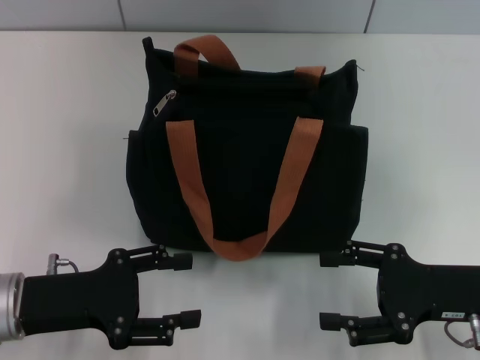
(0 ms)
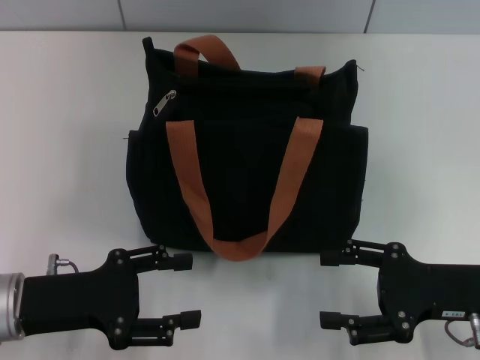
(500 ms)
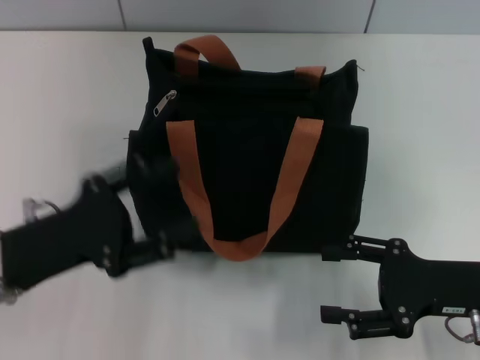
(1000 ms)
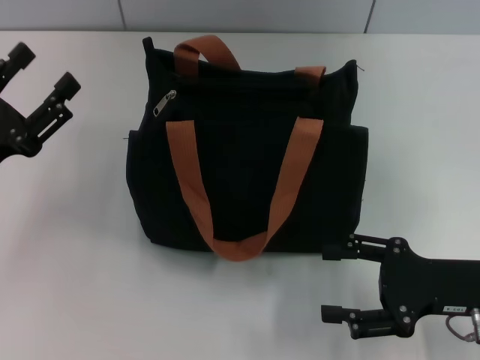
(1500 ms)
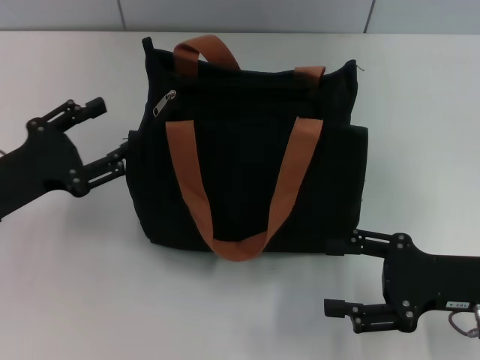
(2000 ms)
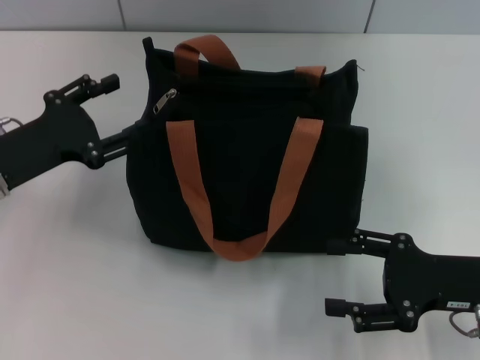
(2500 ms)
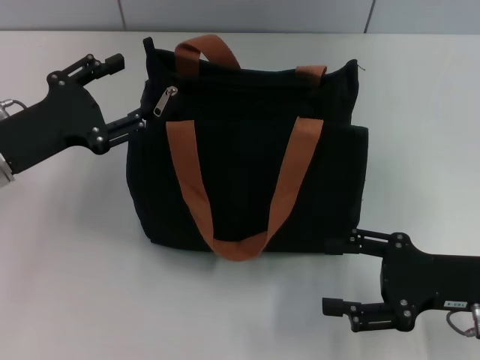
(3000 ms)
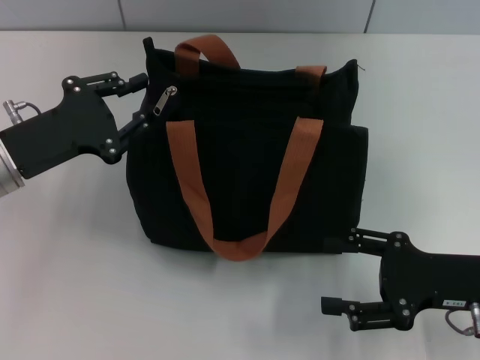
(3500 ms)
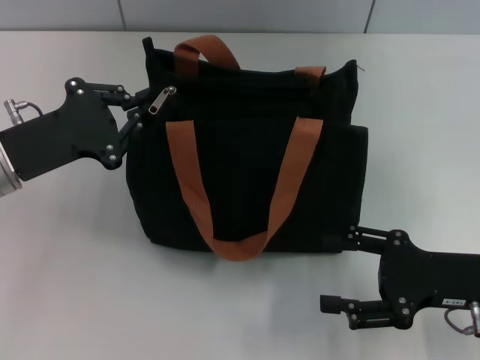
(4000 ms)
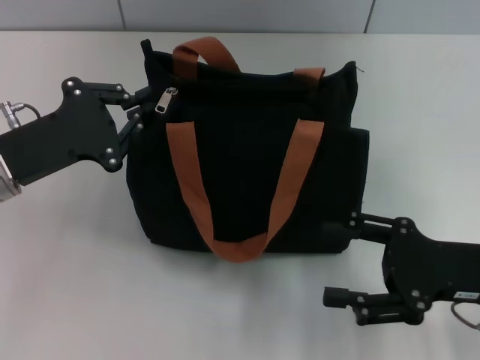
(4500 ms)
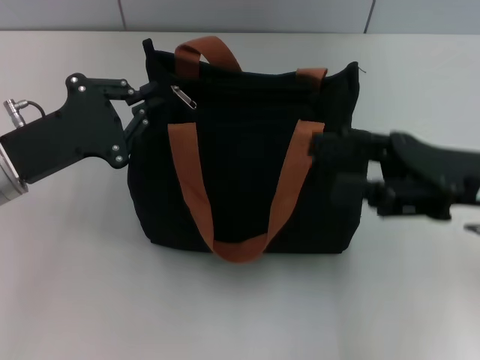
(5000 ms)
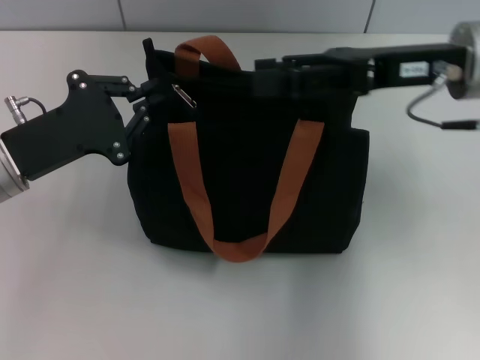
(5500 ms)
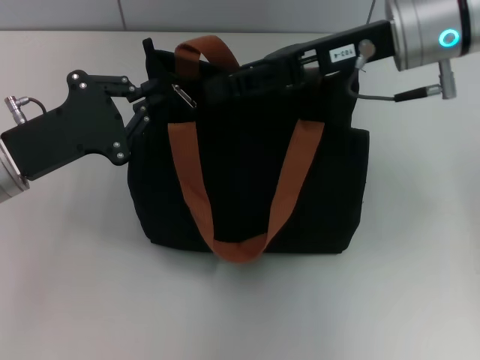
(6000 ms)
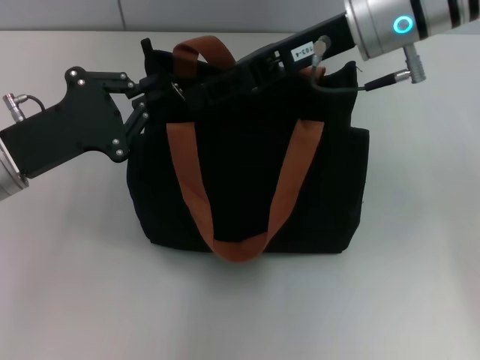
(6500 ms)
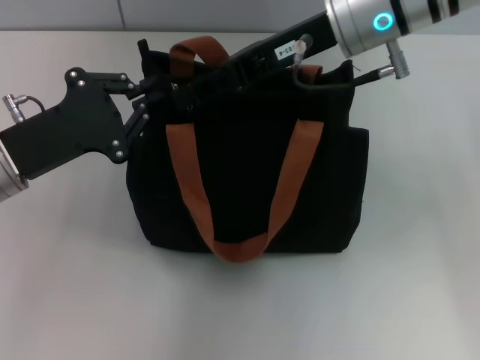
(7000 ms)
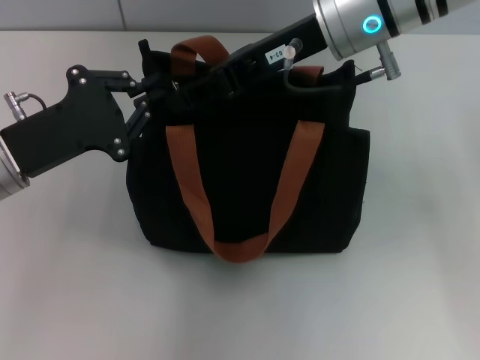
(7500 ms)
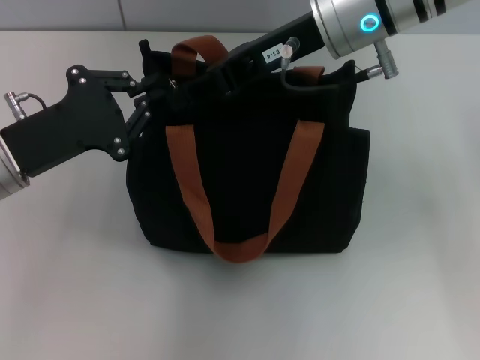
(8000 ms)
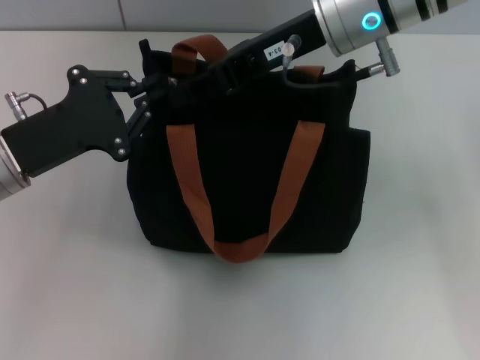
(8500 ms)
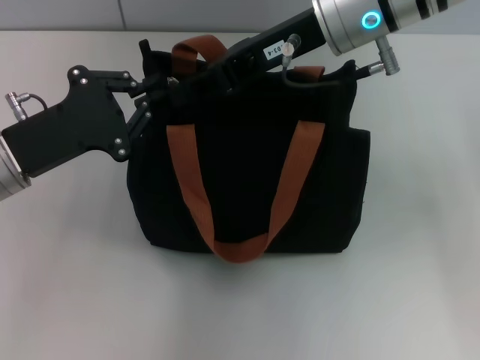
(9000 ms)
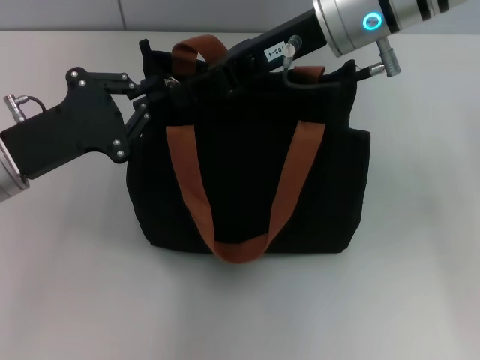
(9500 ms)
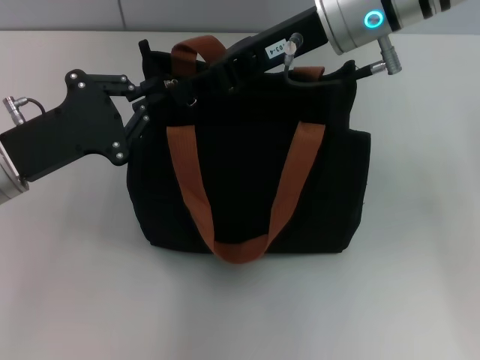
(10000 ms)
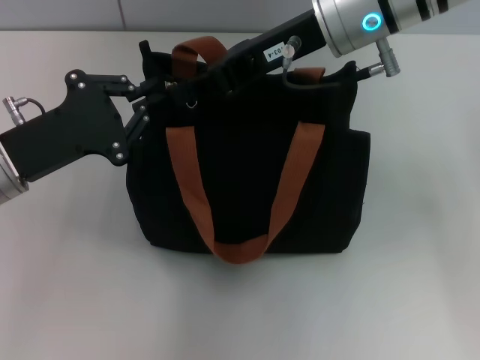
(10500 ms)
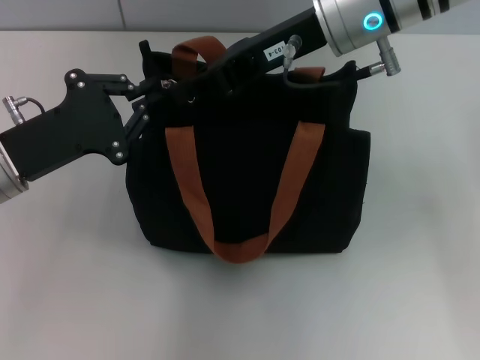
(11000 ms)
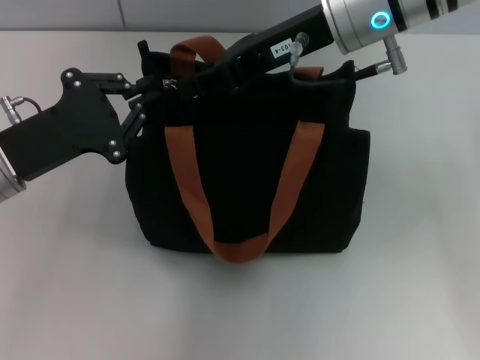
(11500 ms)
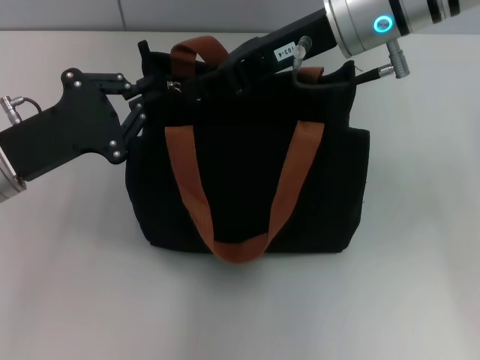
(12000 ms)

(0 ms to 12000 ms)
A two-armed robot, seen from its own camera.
0 ms - 2000 ms: The left gripper changes place by about 5 cm.
2000 ms - 4000 ms: The left gripper moves about 5 cm, and closes.
4000 ms - 6000 ms: The right gripper shifts roughly 25 cm upward, forward and to the left.
6000 ms - 8000 ms: The right gripper travels to the left by about 5 cm, and closes.
8000 ms - 12000 ms: Both grippers stay about where they are.

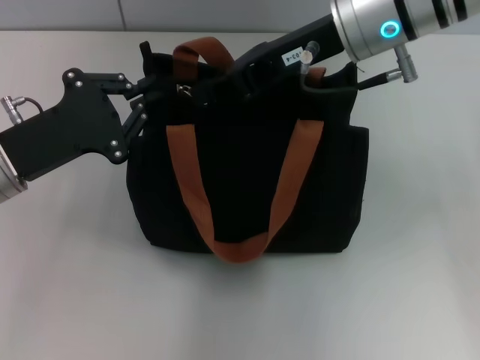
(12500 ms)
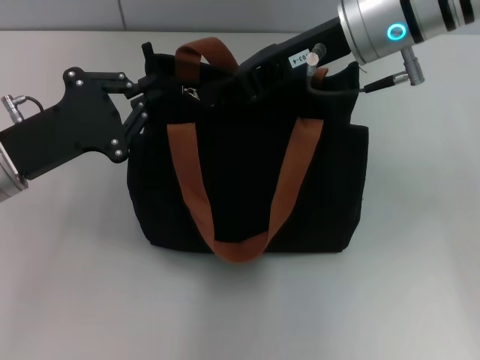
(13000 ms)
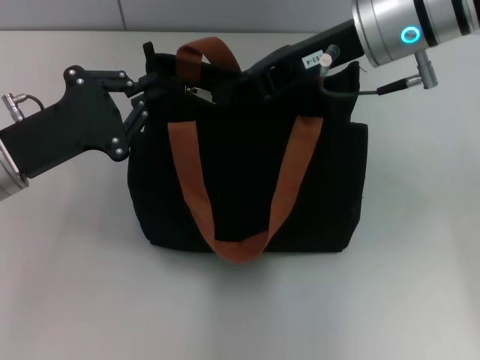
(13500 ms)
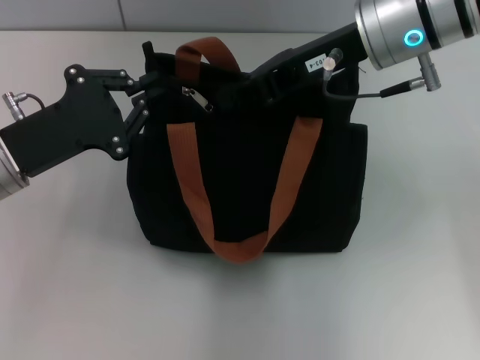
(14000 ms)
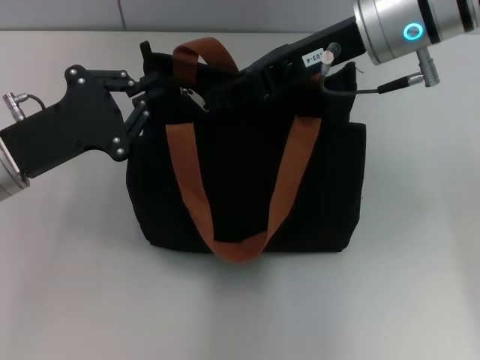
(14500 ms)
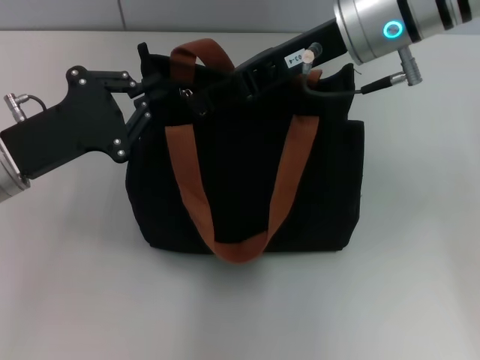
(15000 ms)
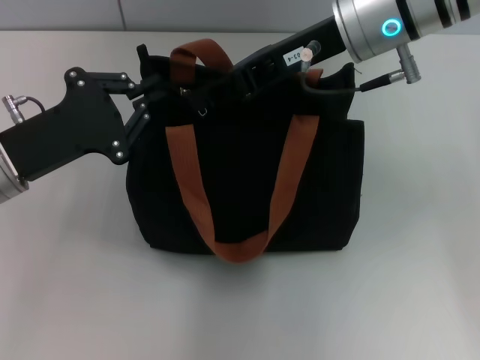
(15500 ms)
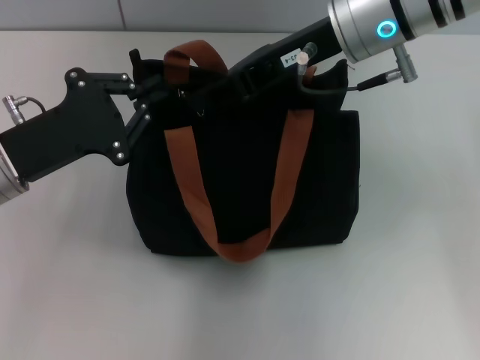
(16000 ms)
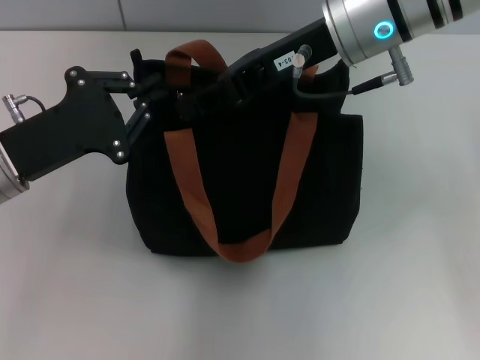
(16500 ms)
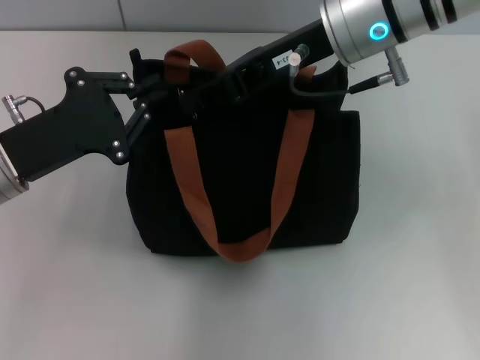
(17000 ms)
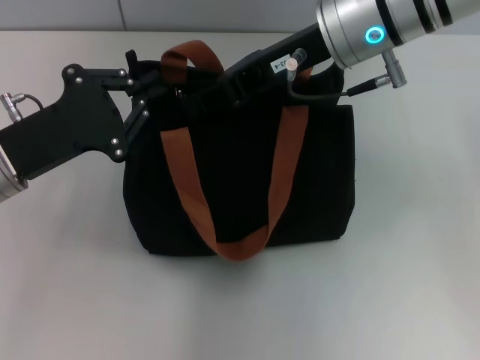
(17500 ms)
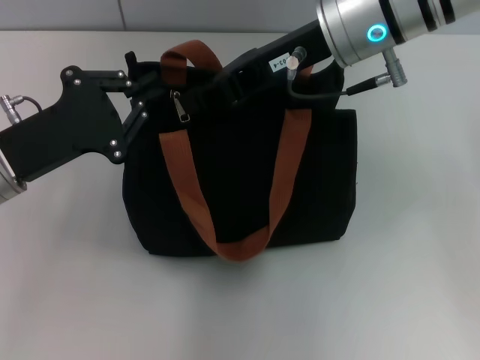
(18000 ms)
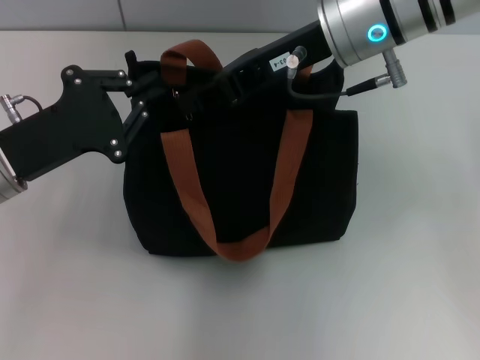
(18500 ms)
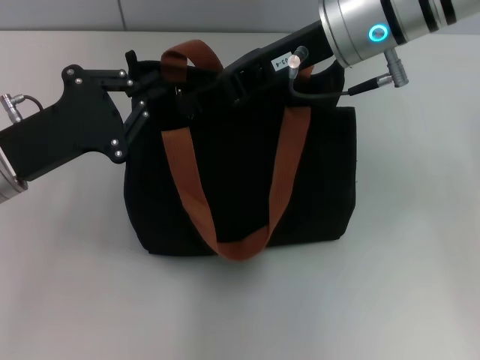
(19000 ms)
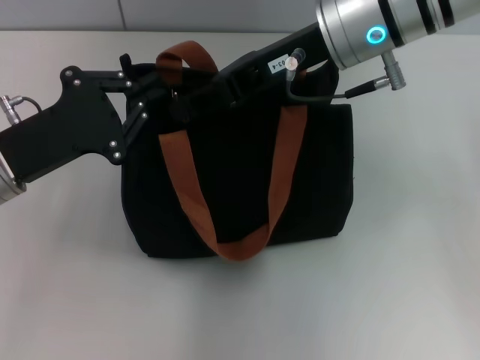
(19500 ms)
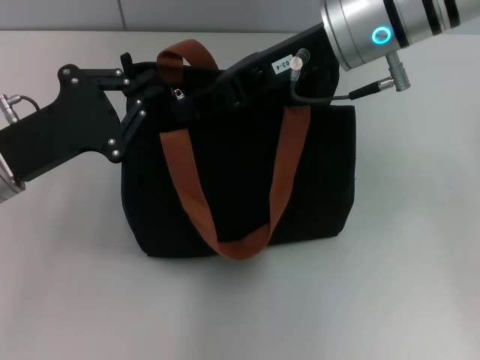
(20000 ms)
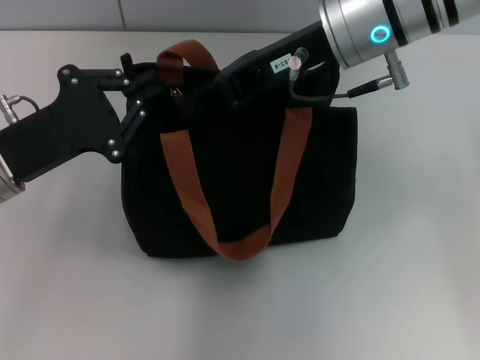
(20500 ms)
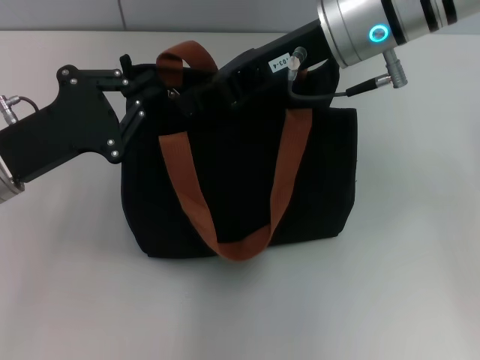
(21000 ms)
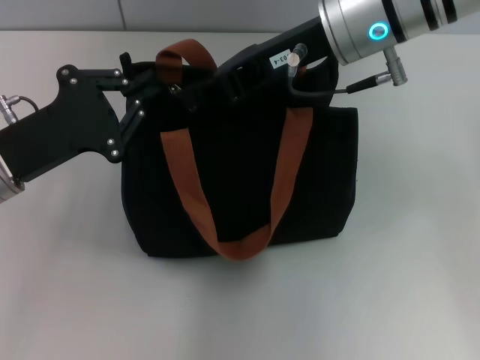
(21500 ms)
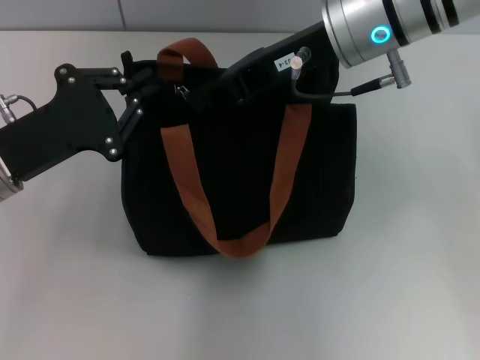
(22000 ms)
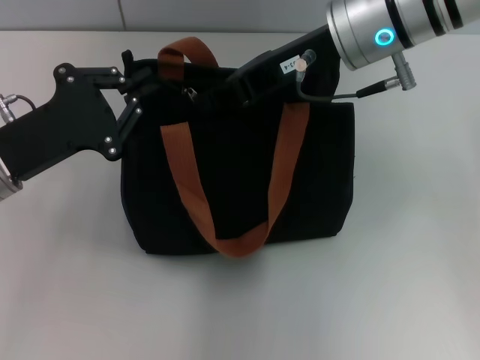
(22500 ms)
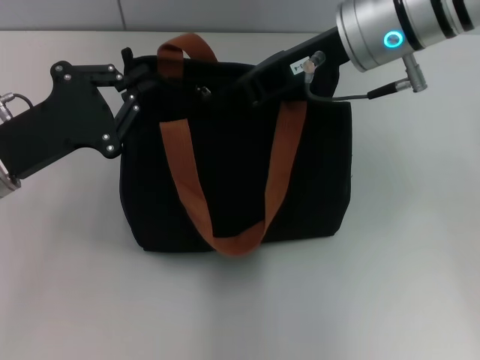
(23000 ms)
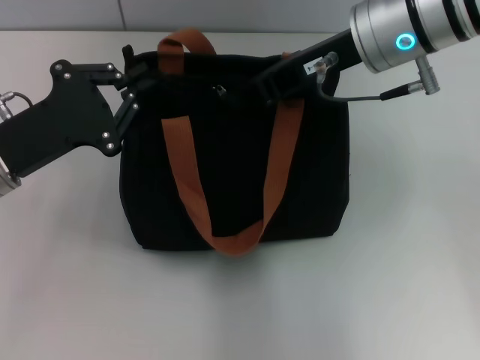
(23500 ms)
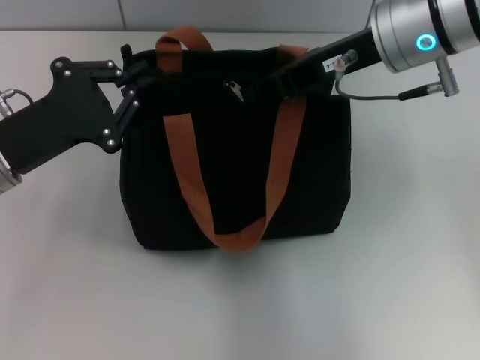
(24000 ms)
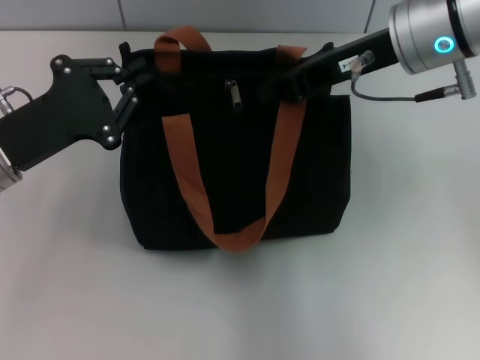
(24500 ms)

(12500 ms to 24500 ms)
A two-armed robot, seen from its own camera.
12500 ms - 16500 ms: The grippers move only a little.
16500 ms - 20500 ms: The two grippers keep their place.
20500 ms - 24500 ms: The grippers make only small movements.

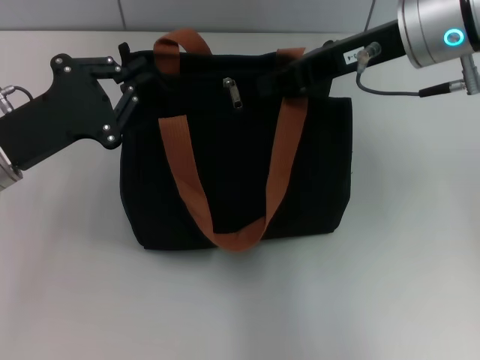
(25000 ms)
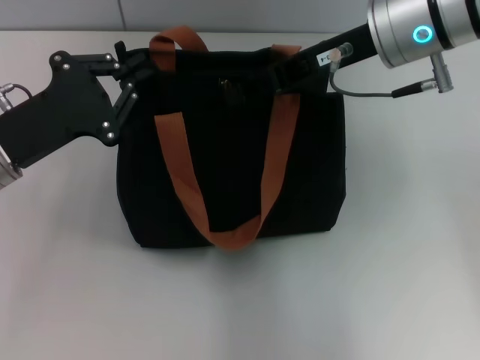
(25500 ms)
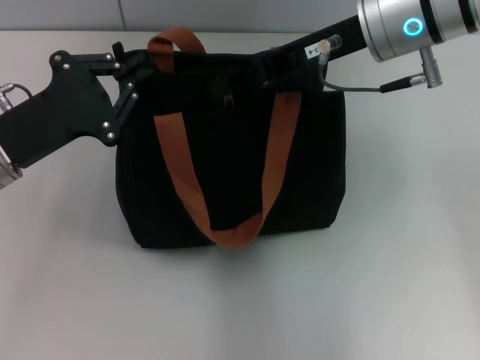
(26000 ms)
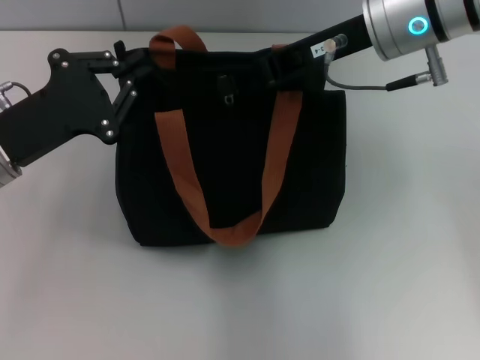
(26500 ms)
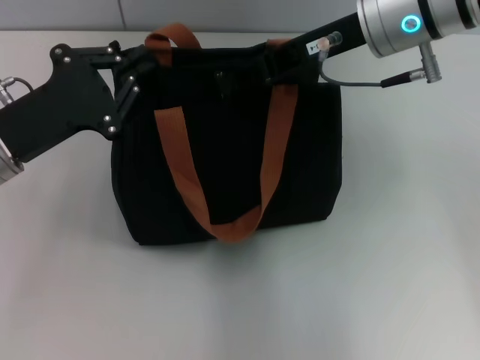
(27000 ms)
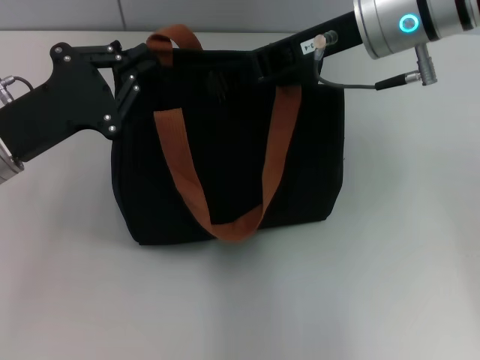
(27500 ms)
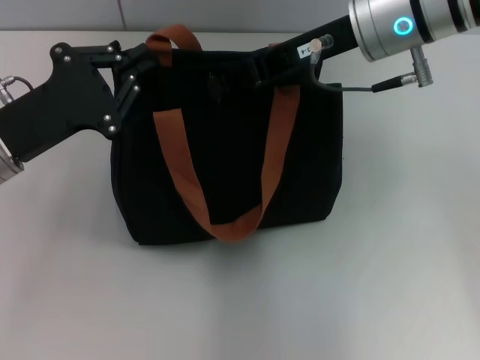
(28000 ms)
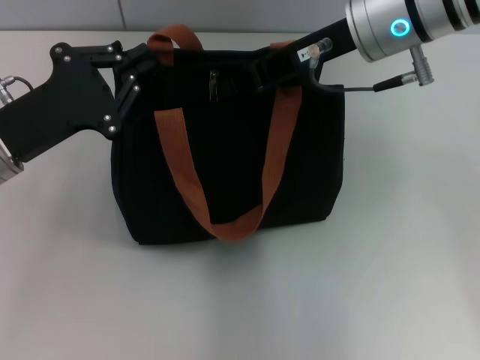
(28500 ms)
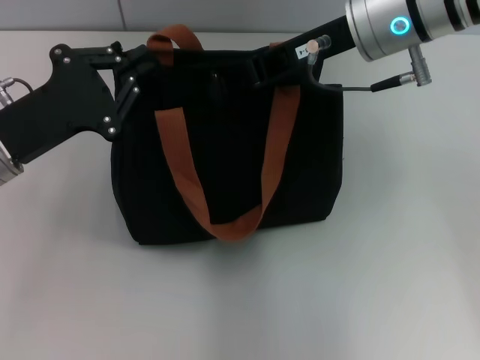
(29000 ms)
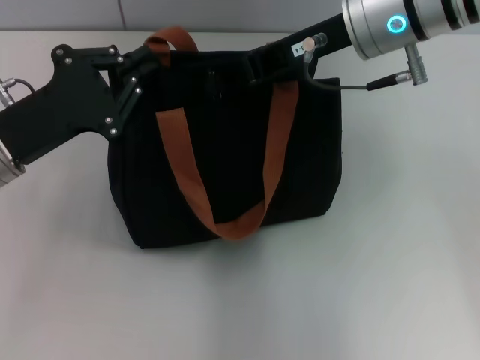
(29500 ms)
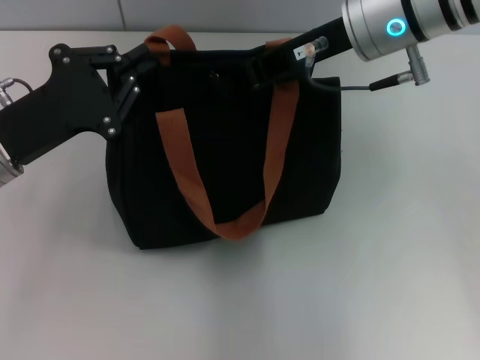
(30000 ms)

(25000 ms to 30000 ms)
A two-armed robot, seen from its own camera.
25000 ms - 27500 ms: The grippers move only a little.
27500 ms - 30000 ms: Both grippers stay put.
